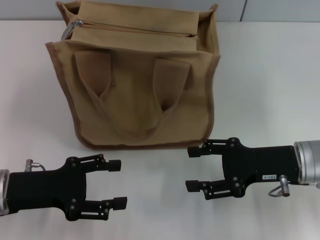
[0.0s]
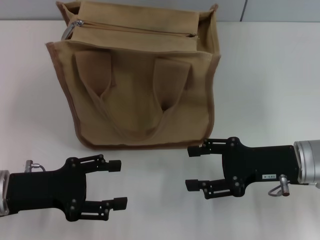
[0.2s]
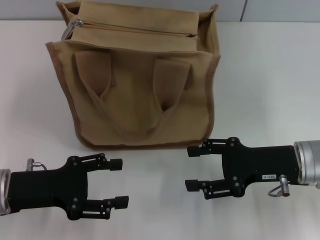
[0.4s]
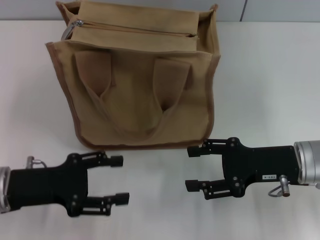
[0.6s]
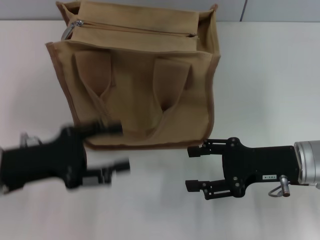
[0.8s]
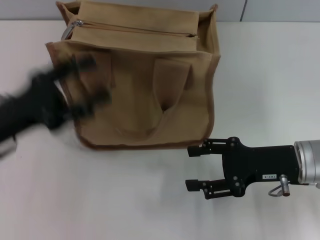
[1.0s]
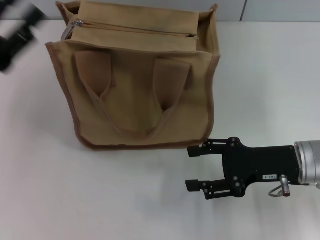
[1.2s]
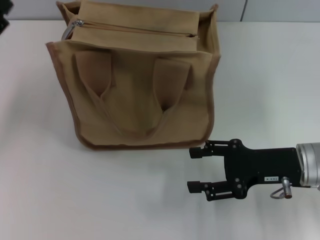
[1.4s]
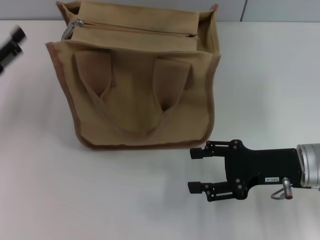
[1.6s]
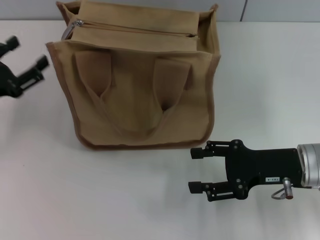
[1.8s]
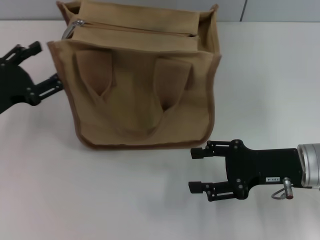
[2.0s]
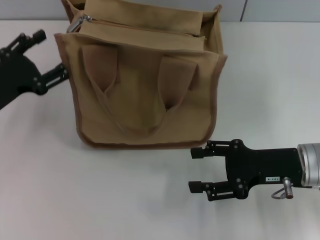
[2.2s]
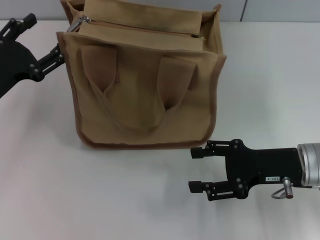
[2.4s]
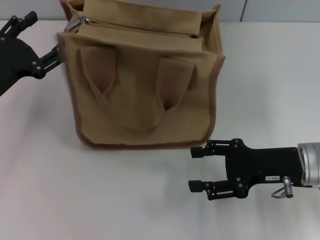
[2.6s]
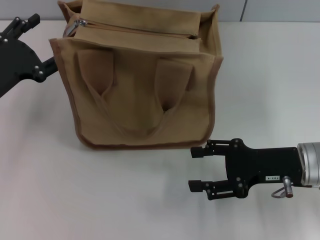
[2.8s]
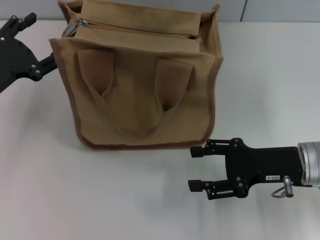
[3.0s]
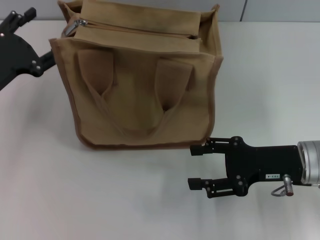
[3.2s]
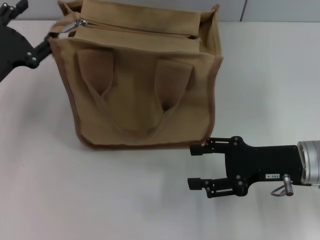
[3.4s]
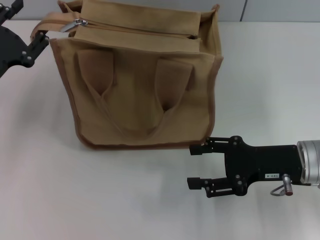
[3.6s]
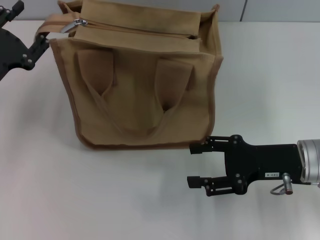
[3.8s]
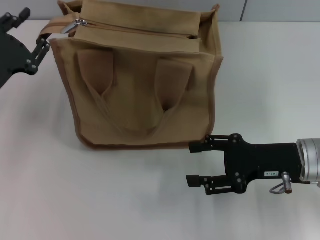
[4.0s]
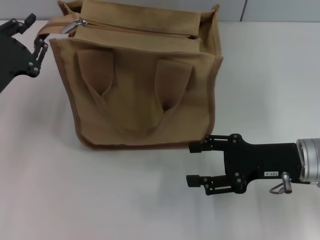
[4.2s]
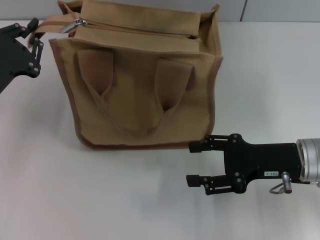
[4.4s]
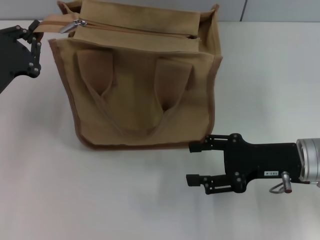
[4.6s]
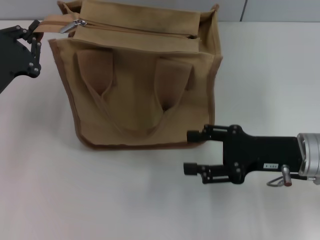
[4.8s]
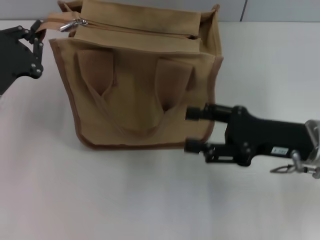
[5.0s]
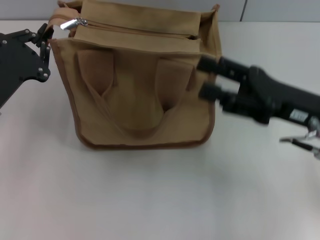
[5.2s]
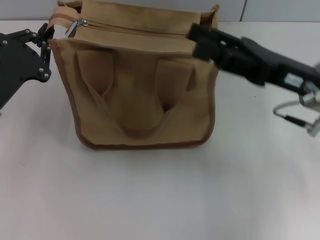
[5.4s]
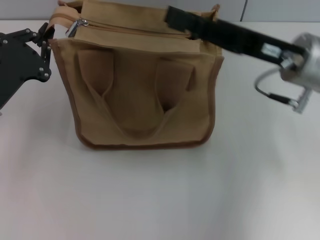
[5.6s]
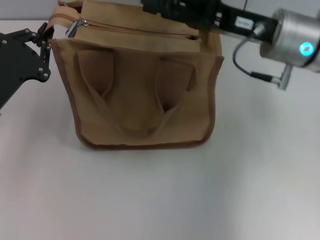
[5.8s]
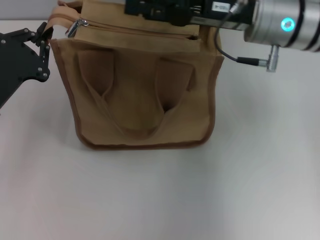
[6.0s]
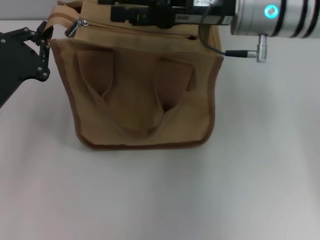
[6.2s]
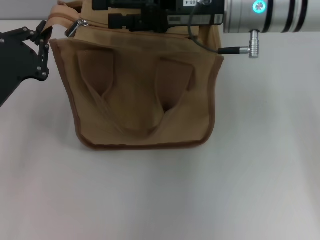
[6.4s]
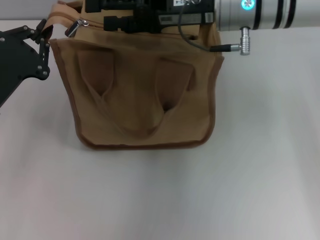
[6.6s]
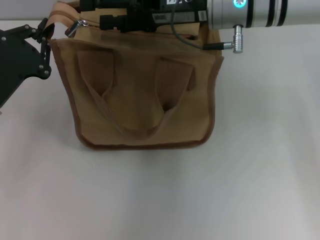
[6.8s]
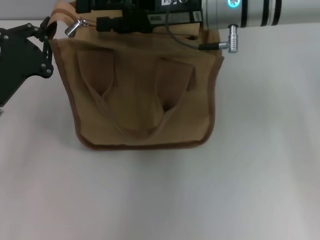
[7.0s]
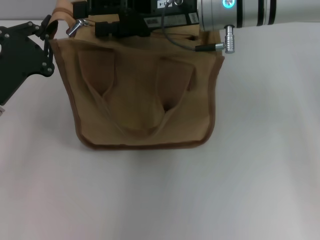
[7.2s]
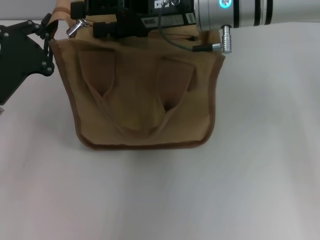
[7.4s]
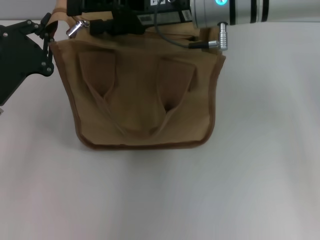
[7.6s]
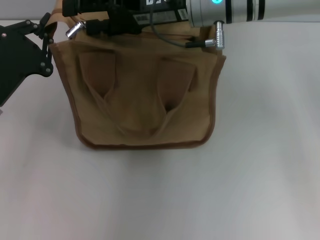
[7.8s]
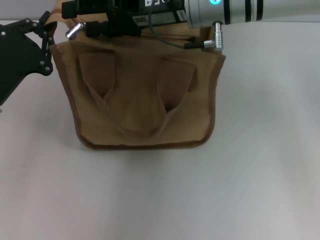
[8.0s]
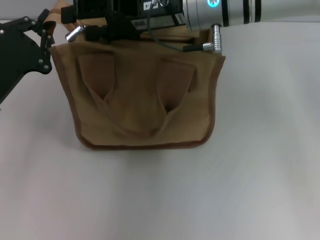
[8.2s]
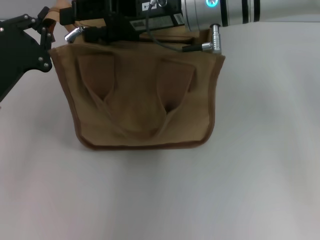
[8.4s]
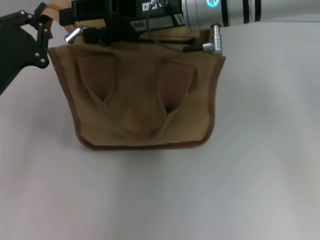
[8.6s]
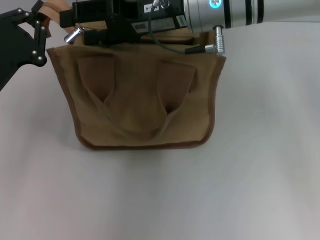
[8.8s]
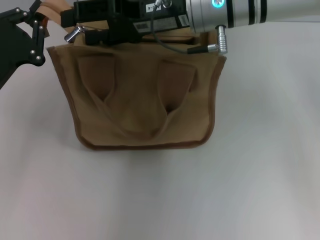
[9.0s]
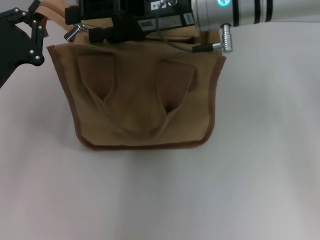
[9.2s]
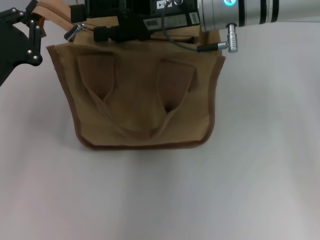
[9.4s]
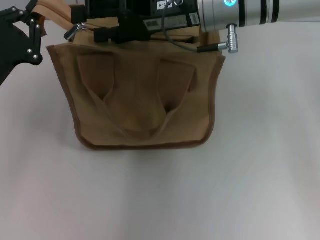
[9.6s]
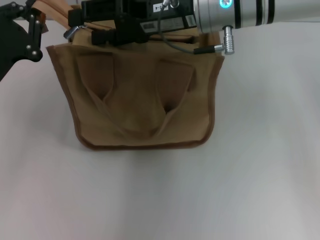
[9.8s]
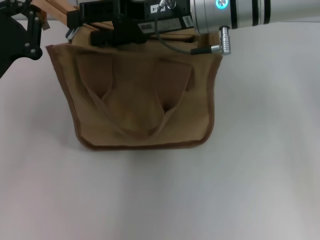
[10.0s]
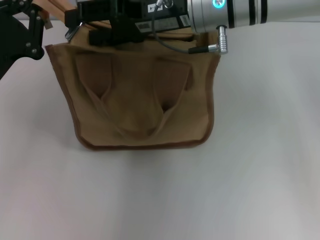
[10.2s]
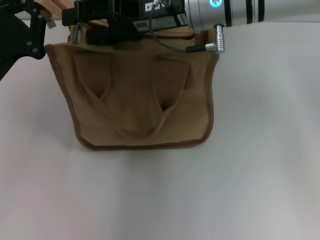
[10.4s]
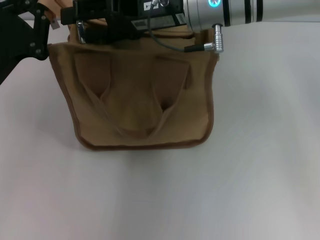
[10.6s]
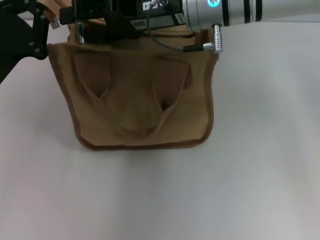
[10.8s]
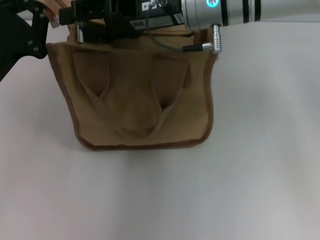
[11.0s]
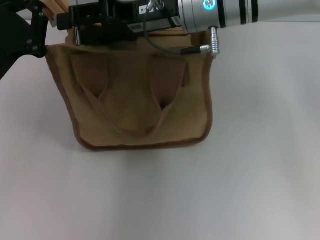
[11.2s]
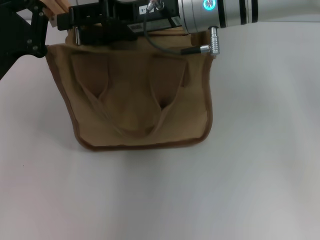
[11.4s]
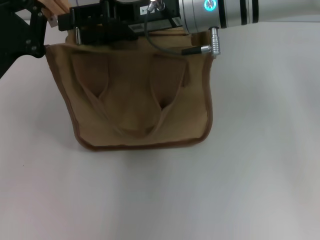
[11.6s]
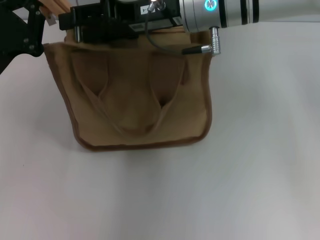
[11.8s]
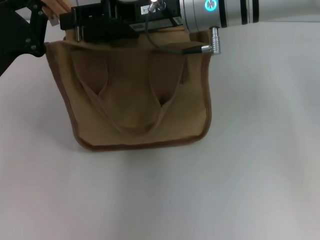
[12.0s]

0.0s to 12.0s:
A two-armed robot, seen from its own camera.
0.0s to 1.6s: The left gripper is displaced to the left and forward by roughly 10 cm.
3.0s to 4.4s: The left gripper closes.
4.4s to 6.0s: The right gripper travels upward, forward and to the left by some 20 cm, while the left gripper closes up.
6.0s to 7.6s: The right gripper goes some 5 cm to the left.
7.6s to 12.0s: The grippers move only a little.

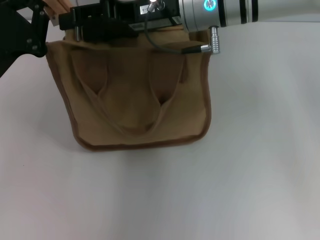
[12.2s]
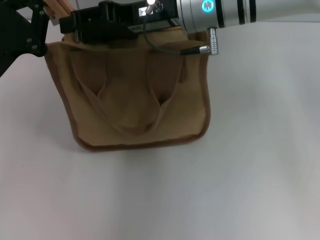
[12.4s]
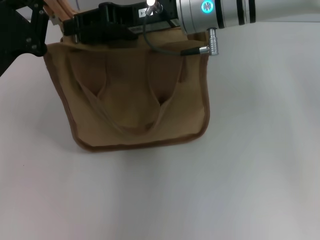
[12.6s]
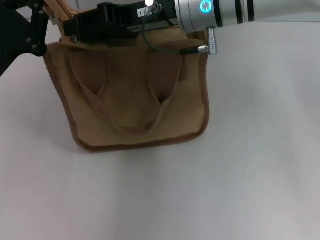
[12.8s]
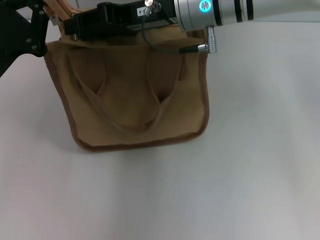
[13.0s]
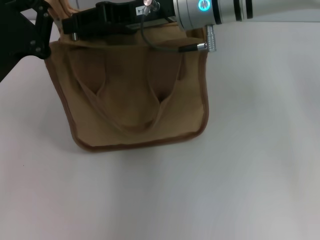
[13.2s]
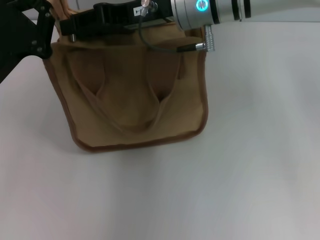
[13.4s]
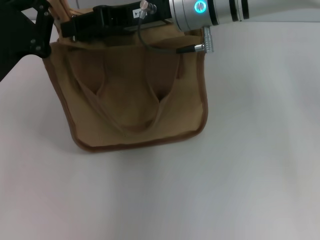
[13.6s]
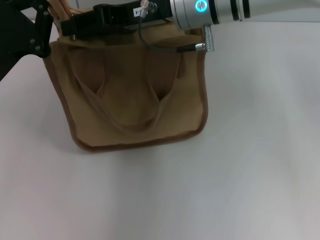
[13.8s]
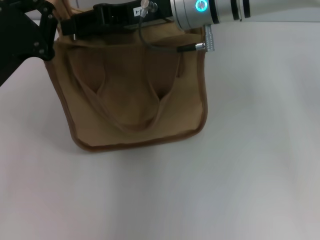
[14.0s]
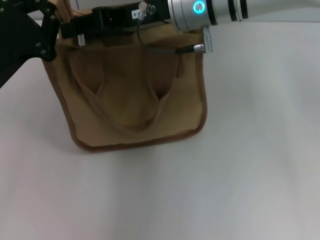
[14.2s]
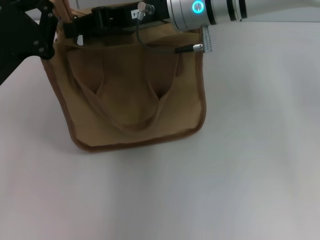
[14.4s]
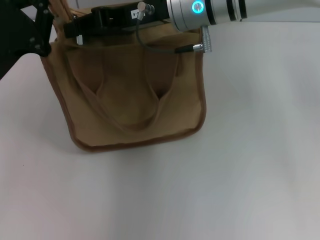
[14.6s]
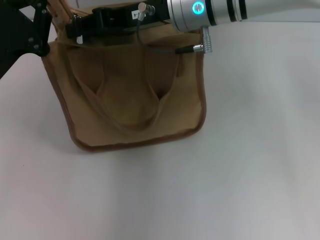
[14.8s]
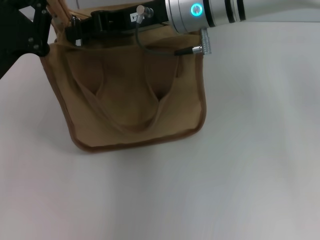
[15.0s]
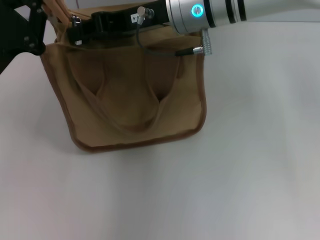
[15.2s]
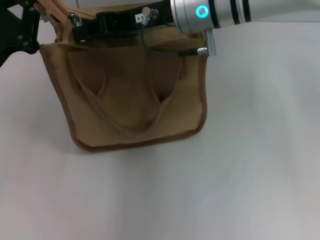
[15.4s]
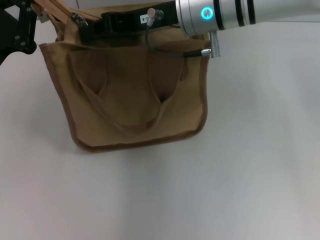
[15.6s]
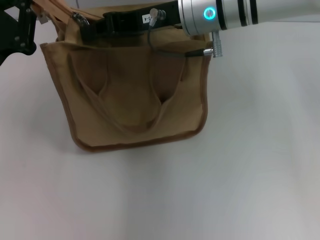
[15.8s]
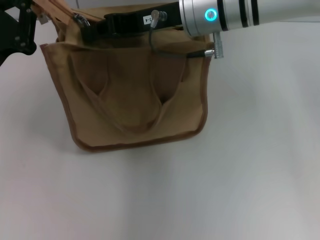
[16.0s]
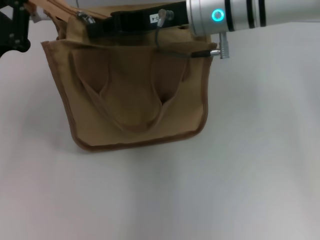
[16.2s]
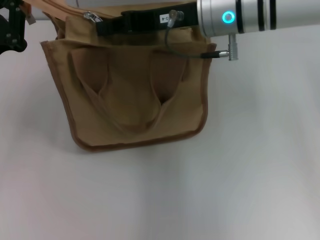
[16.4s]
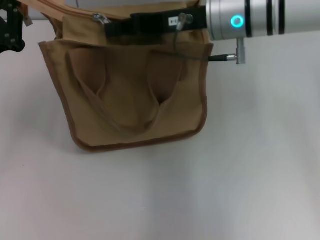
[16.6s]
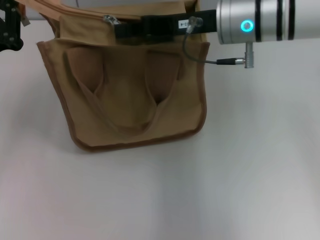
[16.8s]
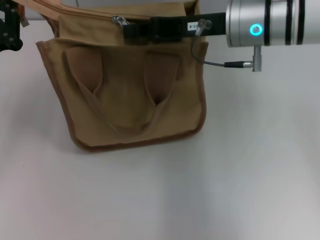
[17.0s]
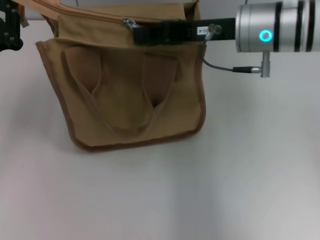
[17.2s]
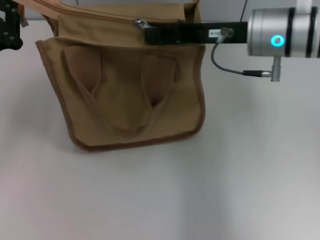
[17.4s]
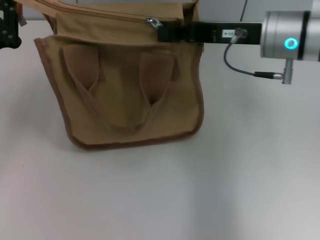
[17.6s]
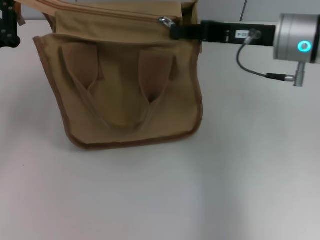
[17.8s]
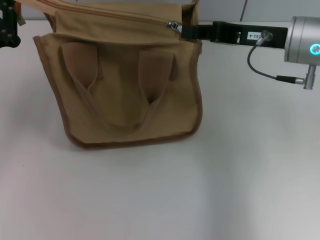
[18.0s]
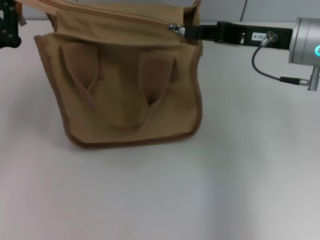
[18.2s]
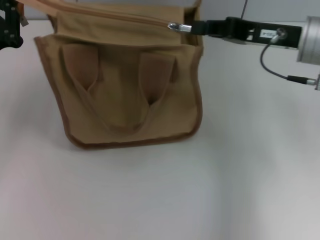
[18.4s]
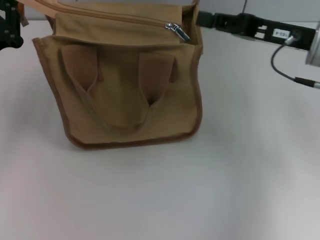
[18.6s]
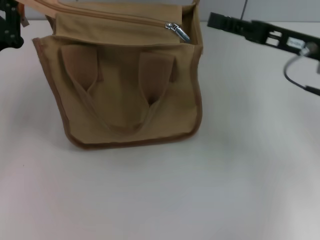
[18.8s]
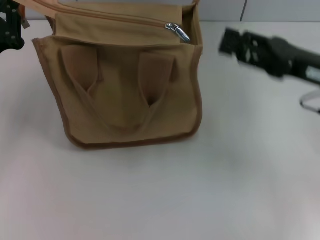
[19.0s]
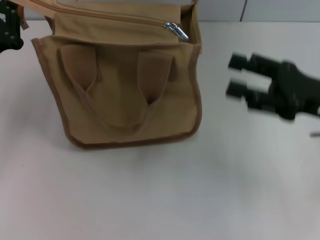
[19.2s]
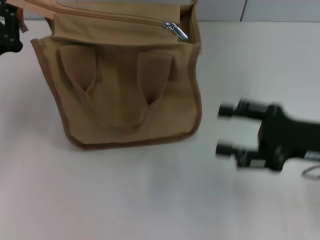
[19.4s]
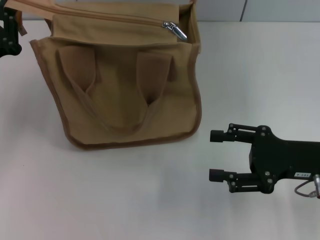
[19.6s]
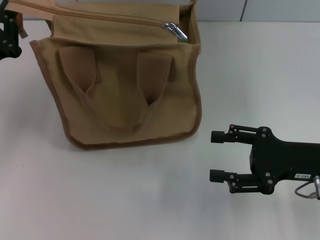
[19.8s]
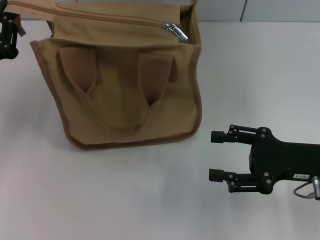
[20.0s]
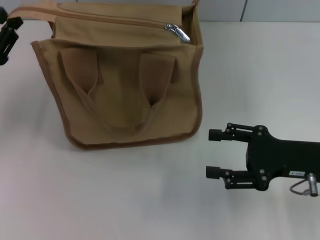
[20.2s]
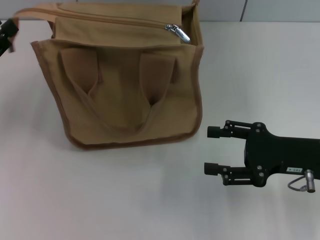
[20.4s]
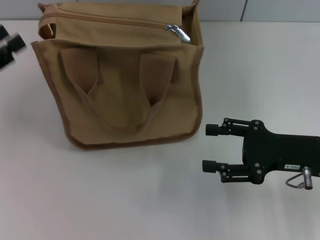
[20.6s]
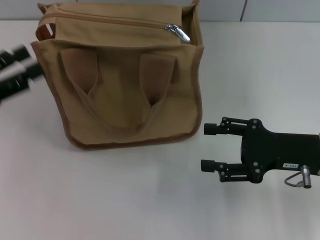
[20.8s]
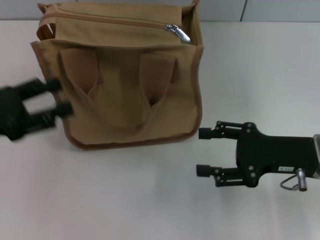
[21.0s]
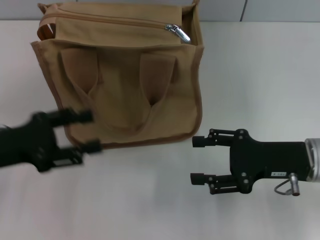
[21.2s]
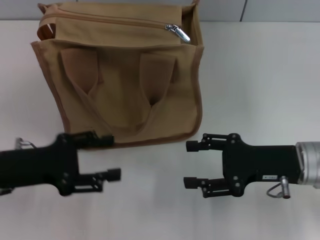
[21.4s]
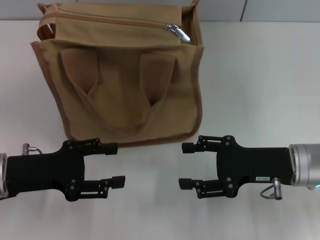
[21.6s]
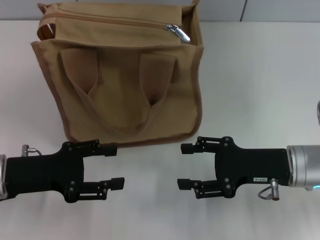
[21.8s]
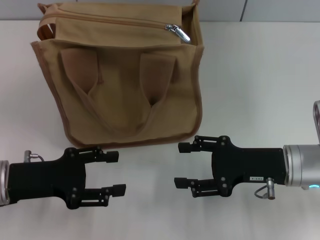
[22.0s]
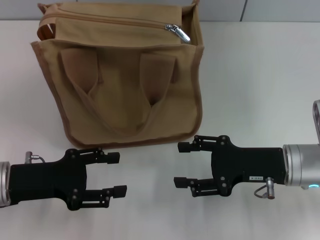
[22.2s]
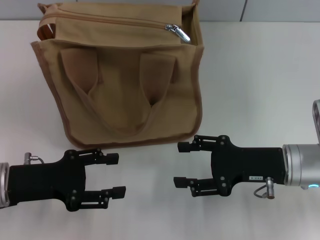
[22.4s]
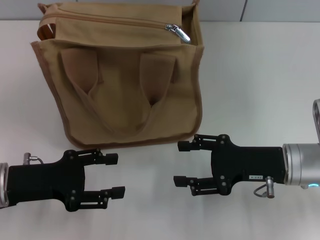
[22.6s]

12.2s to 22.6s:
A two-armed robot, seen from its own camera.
Step, 12.2s to 18.4s: Pull up the zipper with your right hand.
Step, 18.6s to 20.4s: Grab the zipper with your left hand.
12.2s to 13.6s: The grippers make only small movements.
13.6s to 15.2s: The right gripper closes its fingers.
15.2s to 16.6s: There are only small adjustments of the grippers.
16.6s to 18.2s: The right gripper is displaced to the right by roughly 10 cm.
18.2s to 19.6s: The right gripper goes approximately 15 cm backward, downward and to the right, and opens.
19.6s to 21.2s: The left gripper heads backward, covering some 5 cm, and opens up.
21.2s to 22.6s: The left gripper shifts about 5 cm downward.
